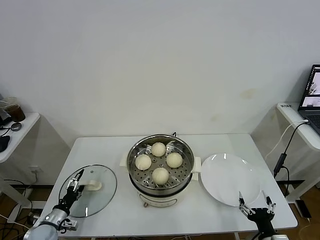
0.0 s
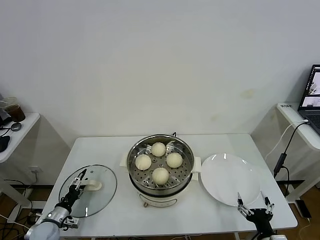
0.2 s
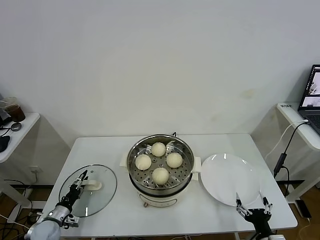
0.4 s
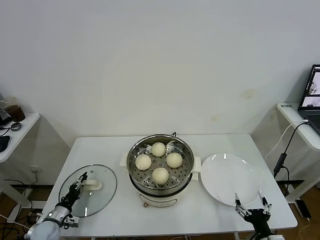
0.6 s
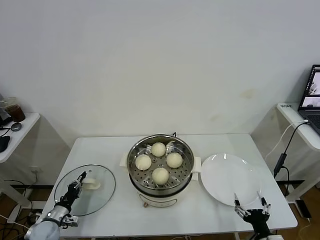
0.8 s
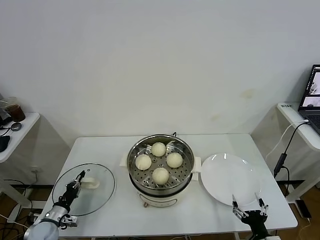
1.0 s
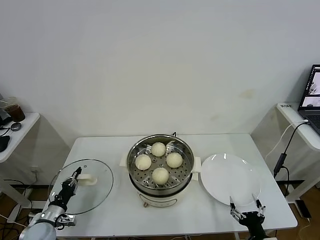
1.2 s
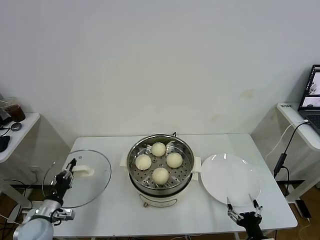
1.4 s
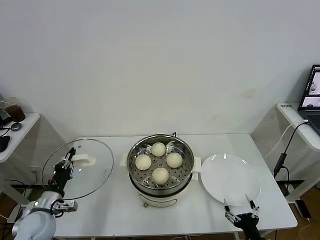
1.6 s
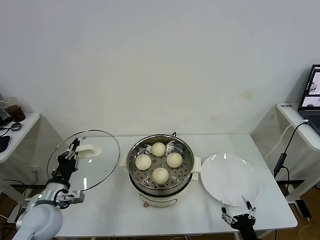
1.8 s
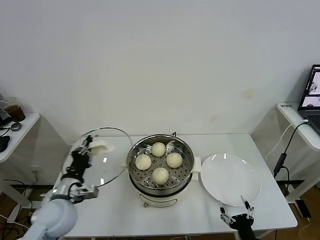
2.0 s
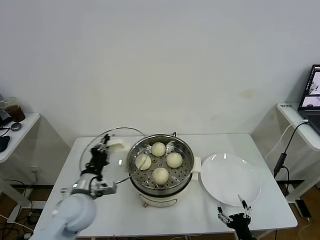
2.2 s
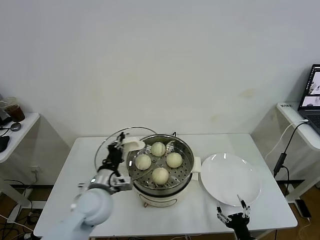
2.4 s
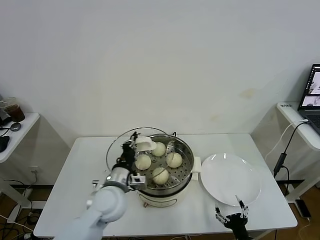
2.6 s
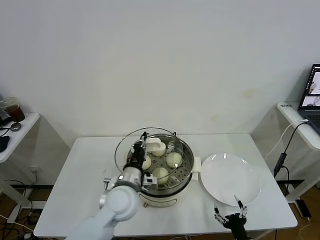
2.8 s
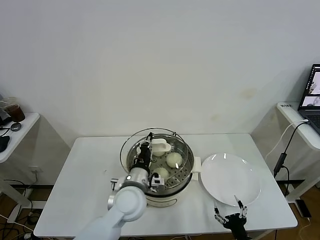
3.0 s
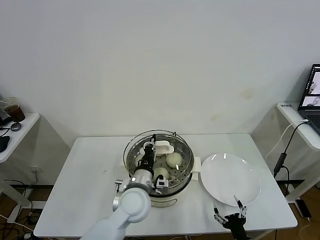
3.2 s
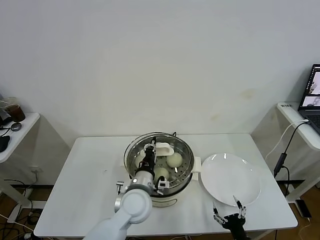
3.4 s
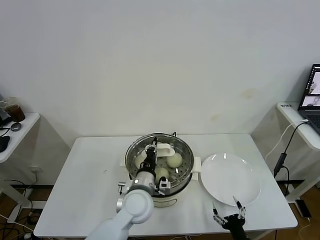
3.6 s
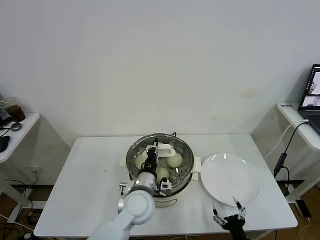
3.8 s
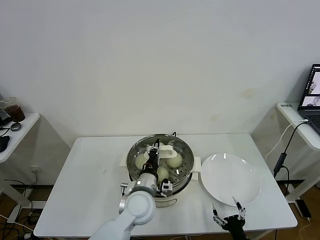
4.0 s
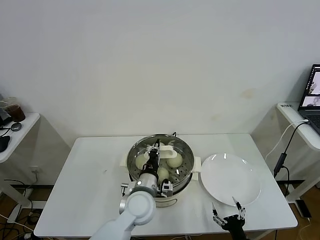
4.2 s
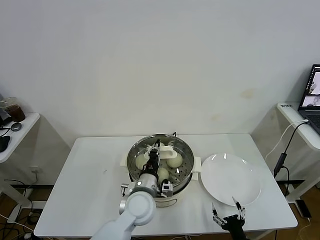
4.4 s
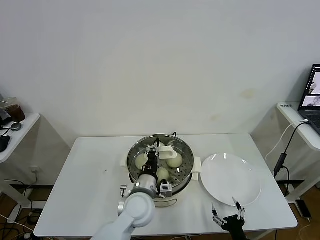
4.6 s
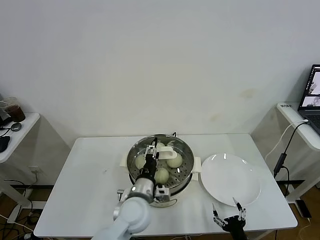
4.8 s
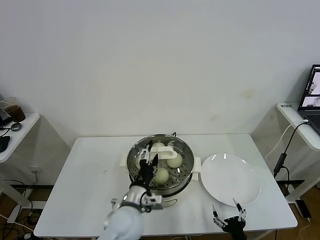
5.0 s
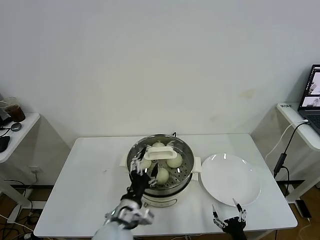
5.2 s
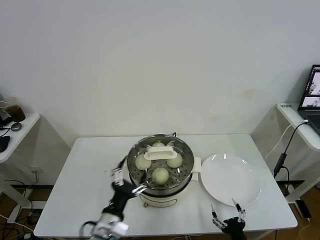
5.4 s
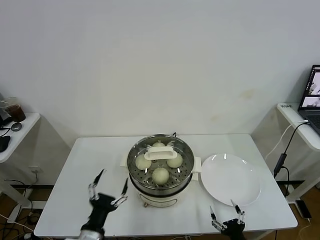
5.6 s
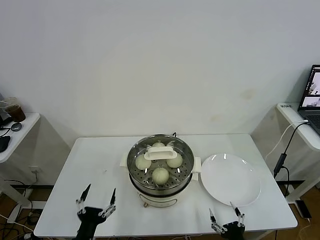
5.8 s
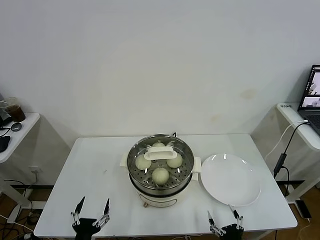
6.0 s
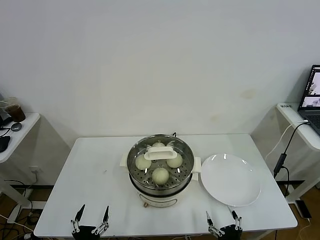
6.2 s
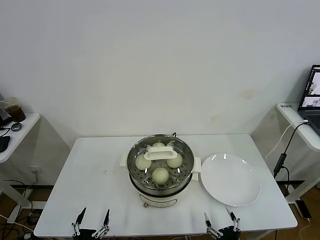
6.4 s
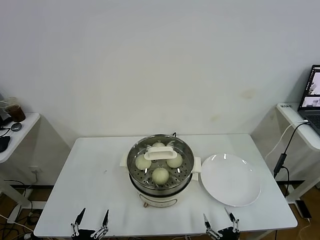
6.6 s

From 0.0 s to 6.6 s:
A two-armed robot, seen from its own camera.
Task of the whole recording: take steamed baozi put them in steamer.
Step, from 1.0 s to 4.8 s: Place the pot lid on the steamer with left gripper.
From 0.0 s to 1.6 s: The left gripper is displaced upward and to the right by about 15 cm, and closes up.
From 1.6 s to 3.2 s: The left gripper travels to the right by some 30 cm.
From 3.2 s to 5.0 s: The left gripper opens its fingers.
From 5.0 s to 6.6 s: The left gripper travels backward, to the left and downward by about 30 cm.

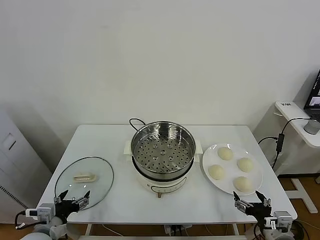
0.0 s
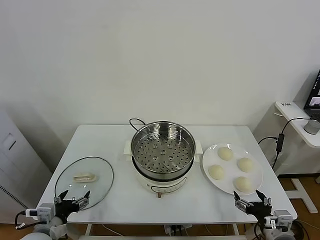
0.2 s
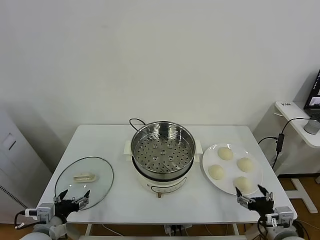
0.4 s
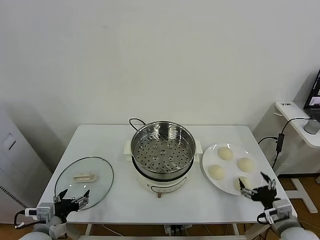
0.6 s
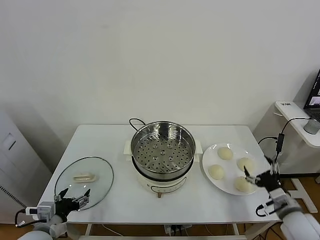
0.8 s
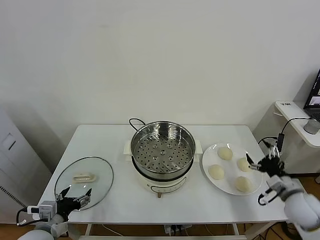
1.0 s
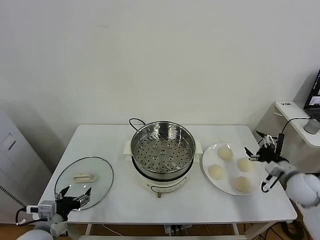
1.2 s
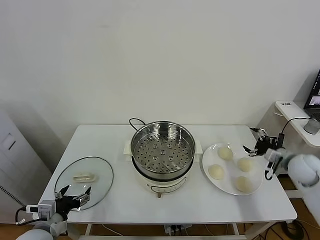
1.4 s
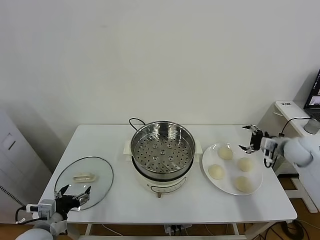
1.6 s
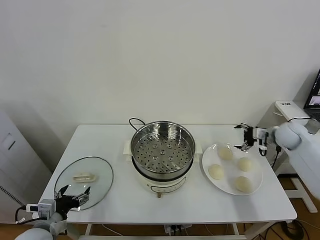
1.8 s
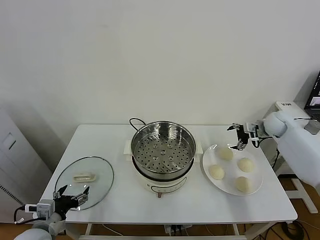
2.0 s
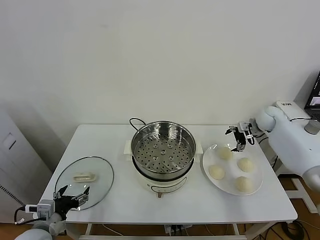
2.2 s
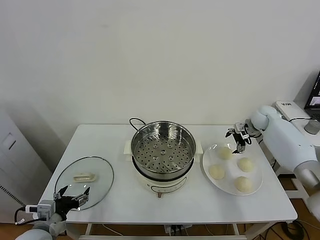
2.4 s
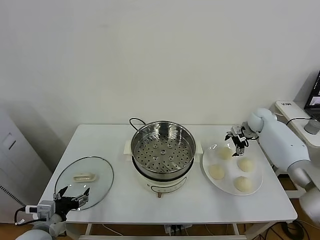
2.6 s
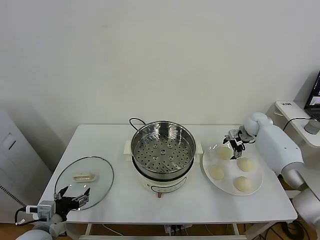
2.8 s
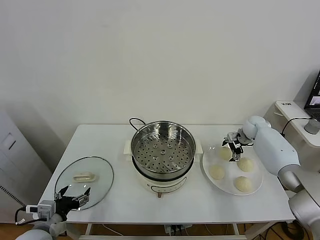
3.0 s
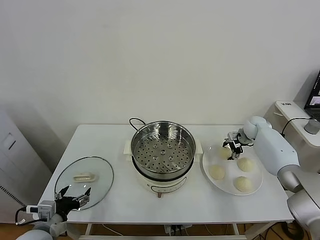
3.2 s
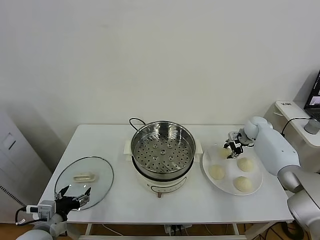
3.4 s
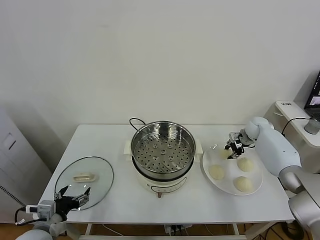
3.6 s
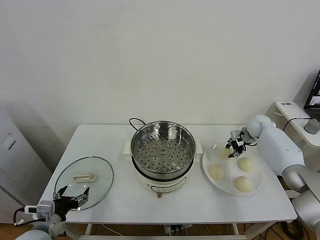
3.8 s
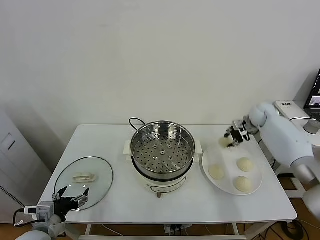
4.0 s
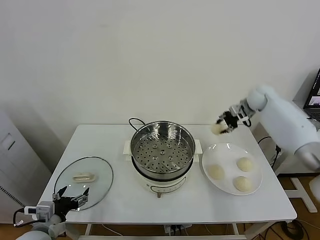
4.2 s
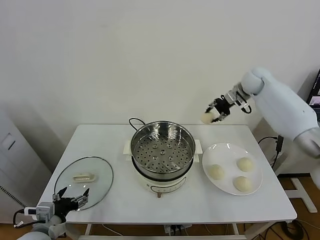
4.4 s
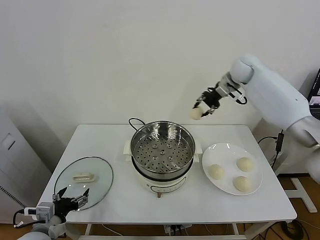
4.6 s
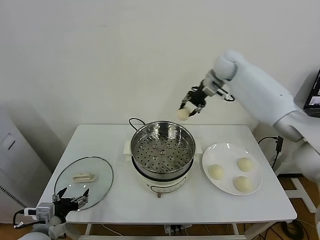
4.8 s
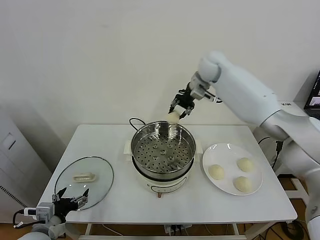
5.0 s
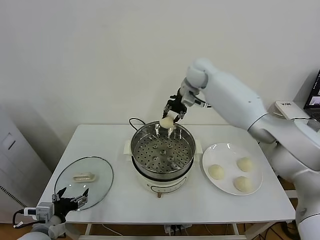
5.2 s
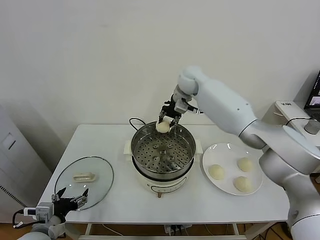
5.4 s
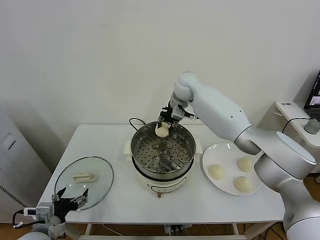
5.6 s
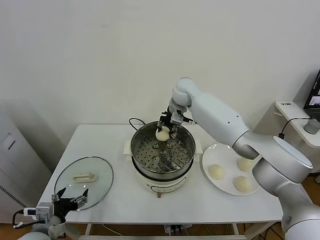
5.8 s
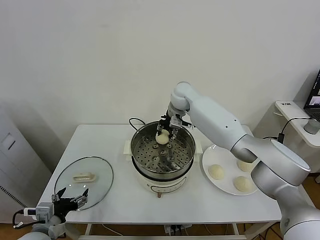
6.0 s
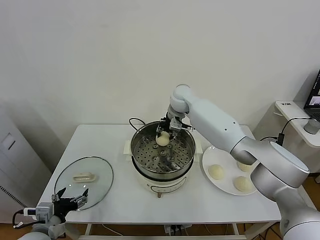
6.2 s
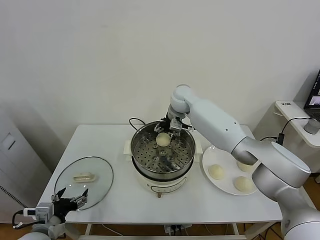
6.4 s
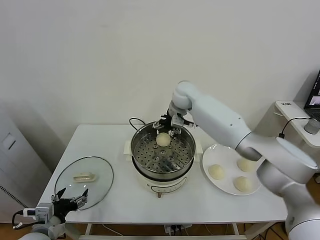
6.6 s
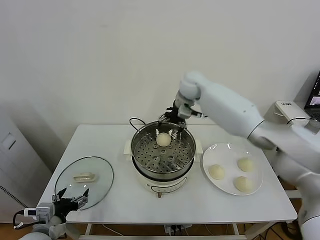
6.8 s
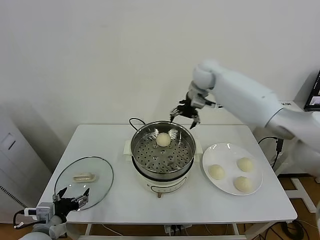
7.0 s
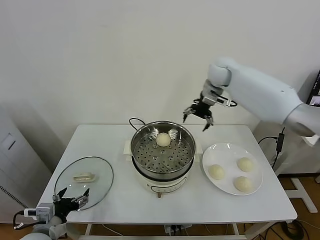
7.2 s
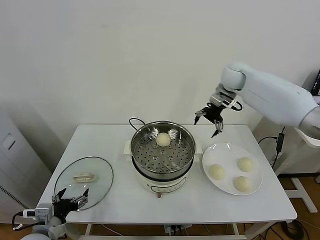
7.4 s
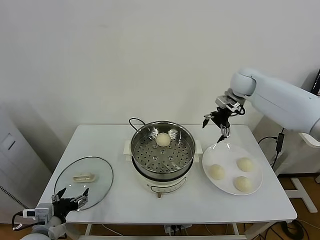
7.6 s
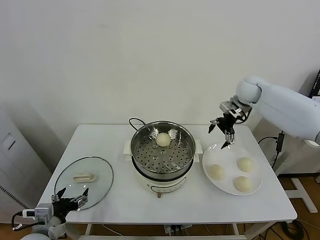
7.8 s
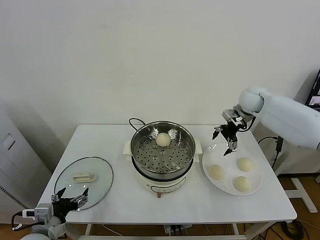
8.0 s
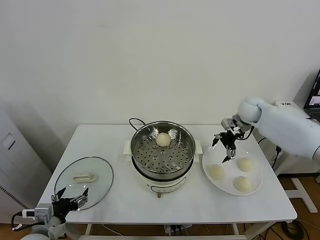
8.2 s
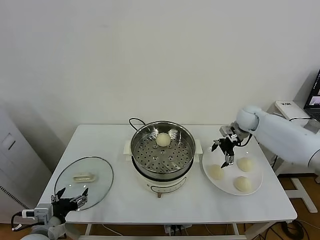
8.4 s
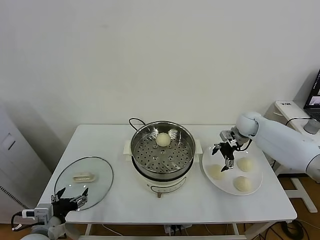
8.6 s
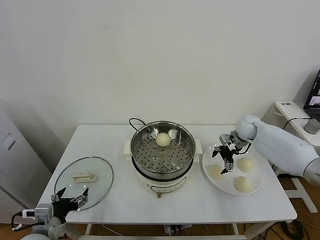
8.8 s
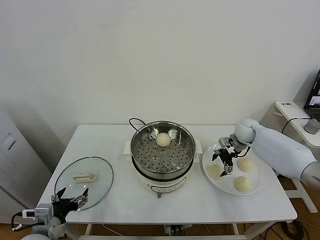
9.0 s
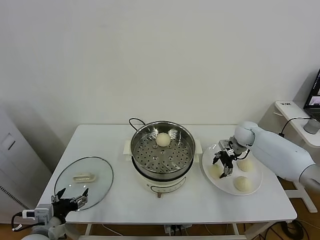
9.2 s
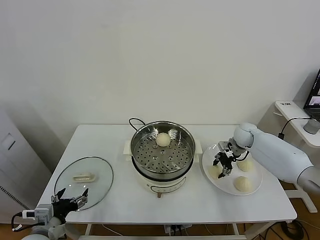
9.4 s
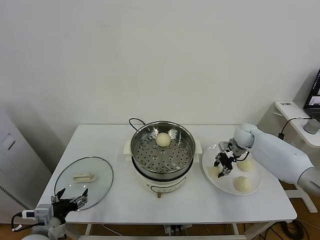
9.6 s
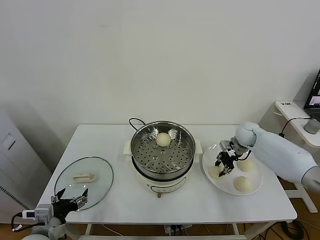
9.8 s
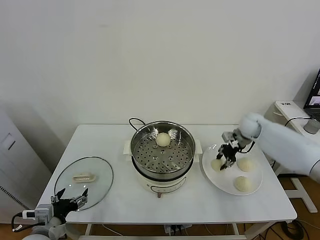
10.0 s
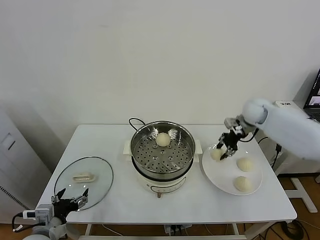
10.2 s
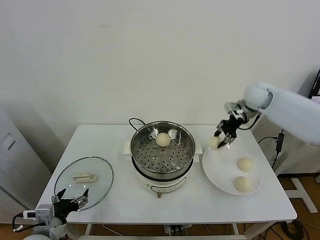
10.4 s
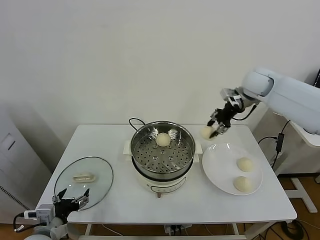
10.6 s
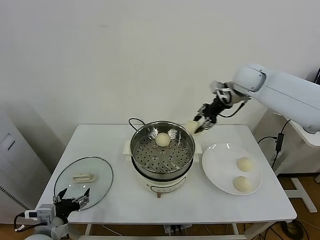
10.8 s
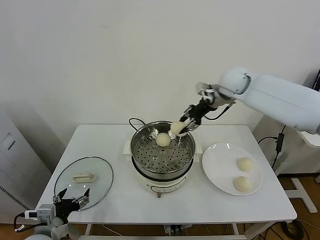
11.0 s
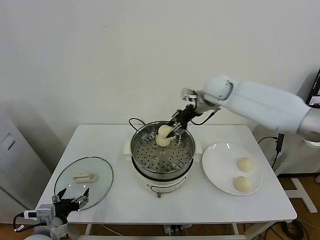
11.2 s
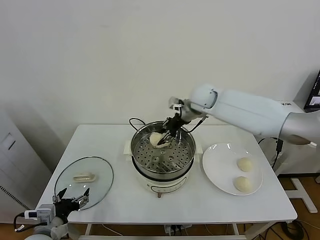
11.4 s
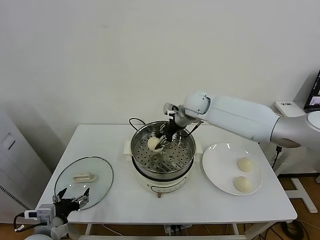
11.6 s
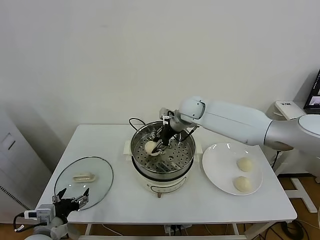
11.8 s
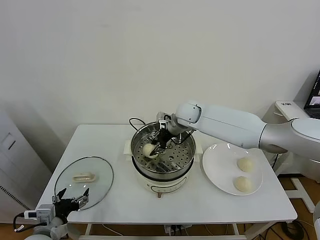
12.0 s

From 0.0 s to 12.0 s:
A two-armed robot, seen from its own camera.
Task of the whole recording: take steamed baozi put them in steamer.
Step, from 0.0 s to 3.4 s: Grasp the baozi in the plate with right gripper.
Step, from 3.6 s to 6.4 s: Place the baozi on the steamer with right gripper.
Step, from 6.8 s to 9.4 s: Grasp the baozi in the plate with right gripper.
From 1.6 s to 3.0 s: The right gripper heads forward, to the left and downward, covering about 15 cm.
From 3.0 s to 4.4 s: The right gripper is displaced upward by roughly 25 cm, and closes up.
From 4.4 s to 6.0 s: The right gripper travels to the left by some 25 cm.
From 6.0 s to 7.6 s: The right gripper is displaced to the right by roughly 25 cm, and opens its fingers.
From 7.6 s to 9.0 s: The right gripper heads downward, covering roughly 20 cm.
From 9.0 s to 10.4 s: The right gripper goes some 20 cm upward, and closes up.
From 10.4 s to 12.0 s: The right gripper shifts some 25 cm to the left and downward.

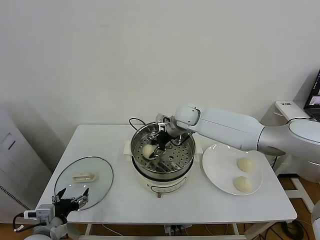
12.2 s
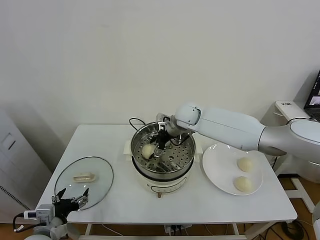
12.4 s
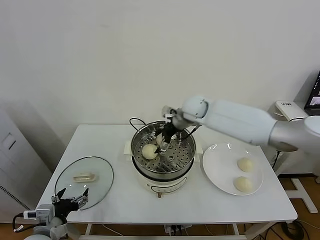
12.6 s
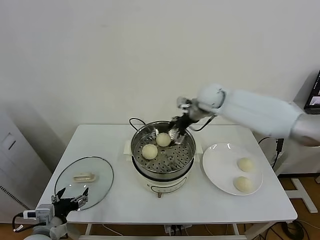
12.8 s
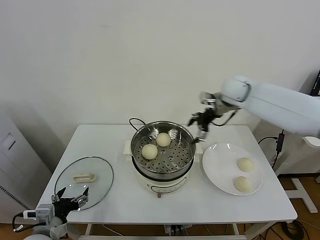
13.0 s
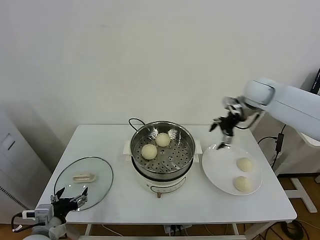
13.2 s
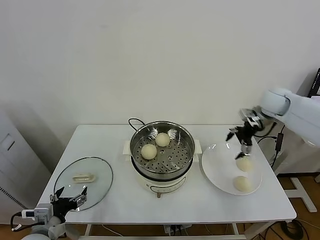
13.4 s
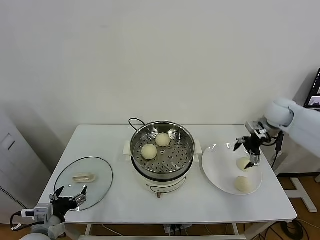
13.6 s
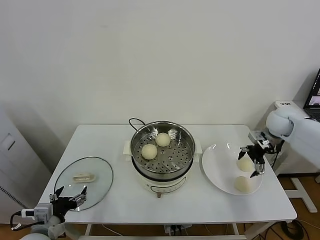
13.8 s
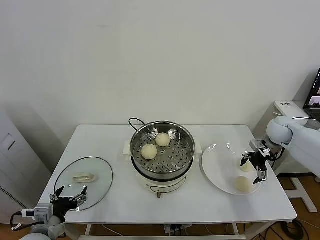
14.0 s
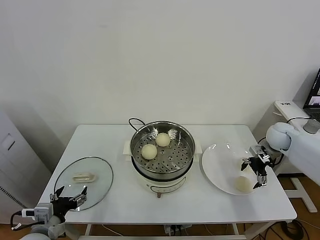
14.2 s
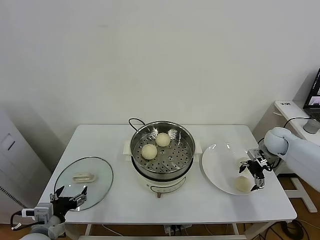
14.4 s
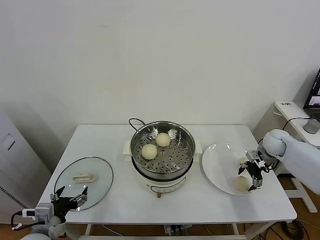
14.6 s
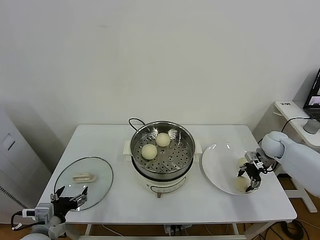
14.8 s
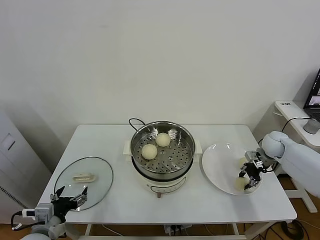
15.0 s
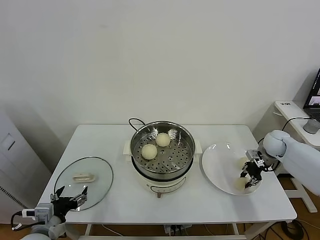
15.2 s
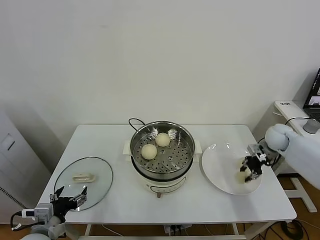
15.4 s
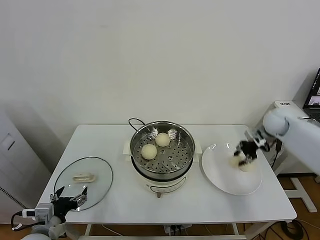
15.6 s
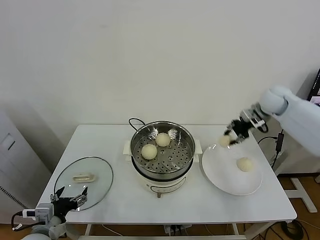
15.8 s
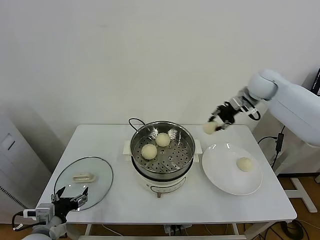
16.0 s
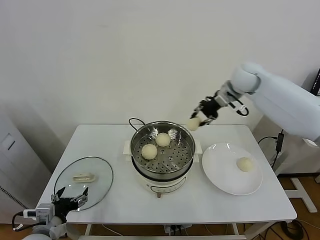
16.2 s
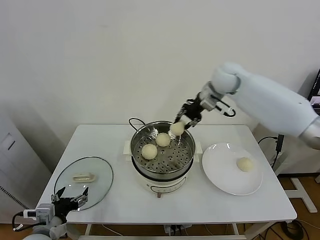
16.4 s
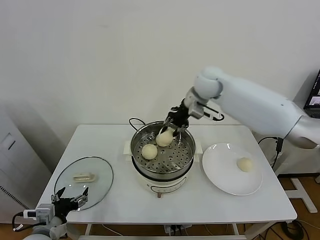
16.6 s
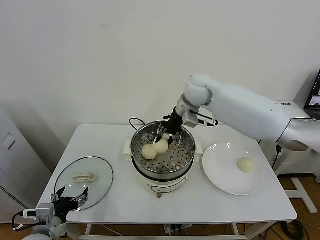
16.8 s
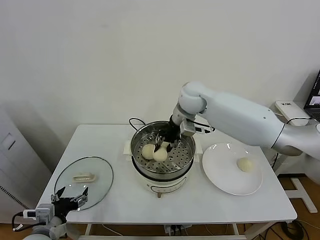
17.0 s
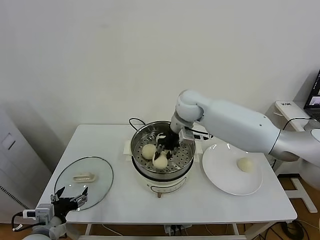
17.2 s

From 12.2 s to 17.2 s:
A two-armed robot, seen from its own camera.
Task of the whole recording: take steamed baozi put them in steamer.
Step, from 12.6 s to 15.0 s: Grasp the baozi in the plate with right gripper.
From 12.2 s to 13.8 s: The right gripper travels to the right by approximately 35 cm, and opens.
From 13.8 s to 15.6 s: The right gripper moves approximately 10 cm downward and comes back, and closes.
From 15.6 s to 17.2 s: The right gripper is displaced to the left by approximately 30 cm.
